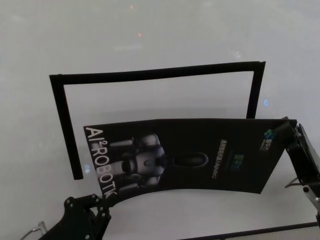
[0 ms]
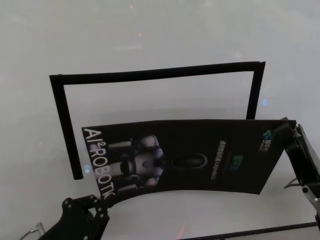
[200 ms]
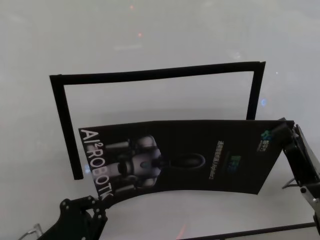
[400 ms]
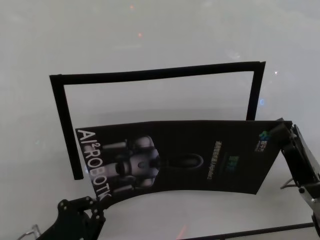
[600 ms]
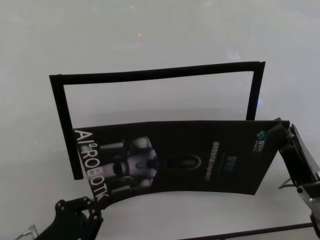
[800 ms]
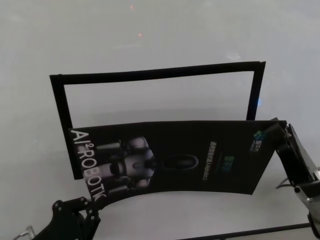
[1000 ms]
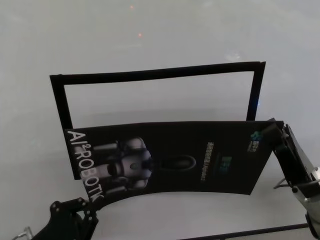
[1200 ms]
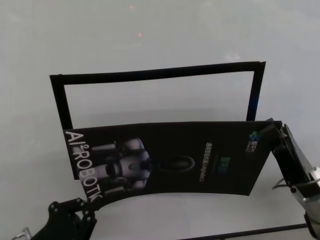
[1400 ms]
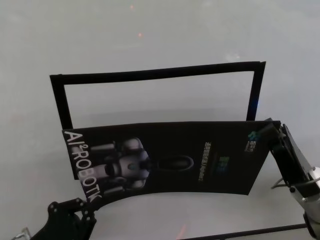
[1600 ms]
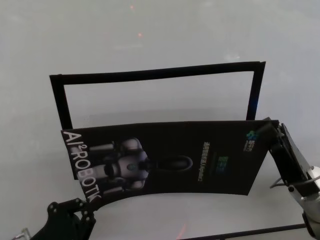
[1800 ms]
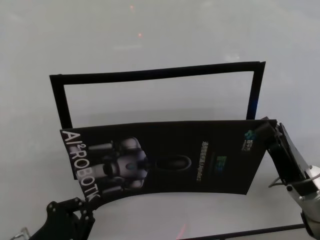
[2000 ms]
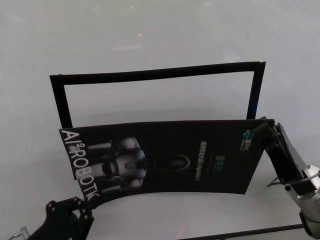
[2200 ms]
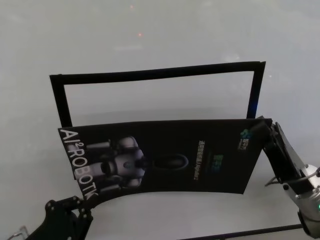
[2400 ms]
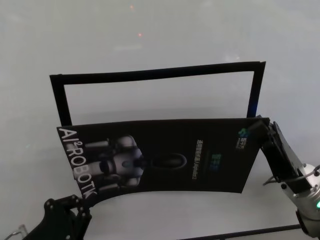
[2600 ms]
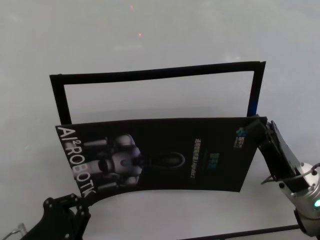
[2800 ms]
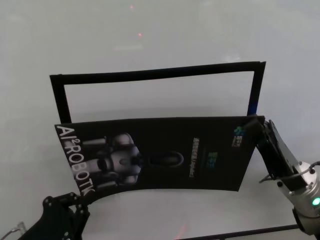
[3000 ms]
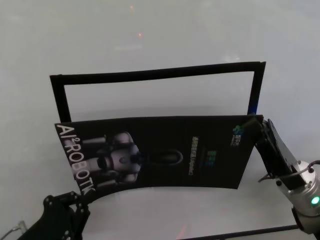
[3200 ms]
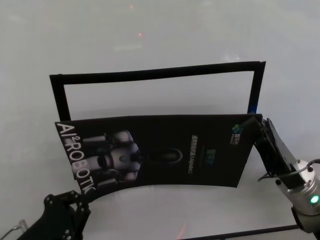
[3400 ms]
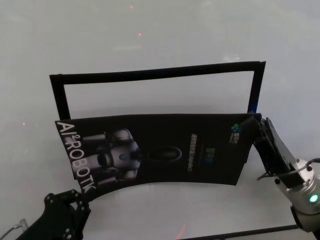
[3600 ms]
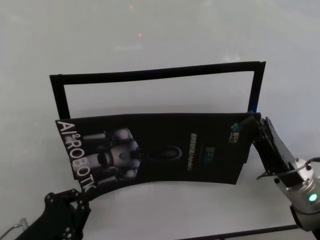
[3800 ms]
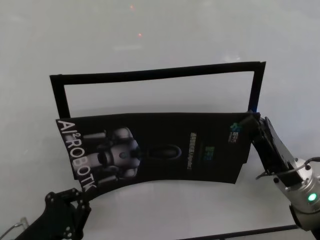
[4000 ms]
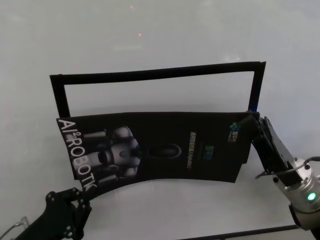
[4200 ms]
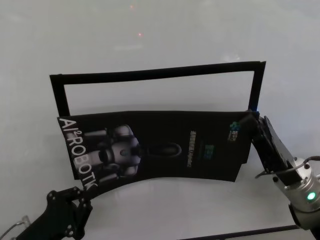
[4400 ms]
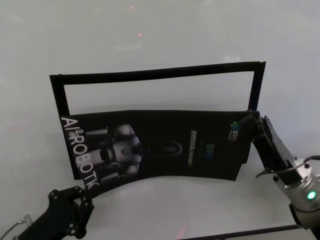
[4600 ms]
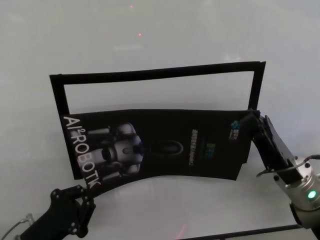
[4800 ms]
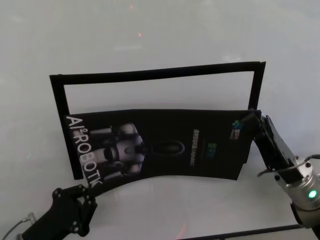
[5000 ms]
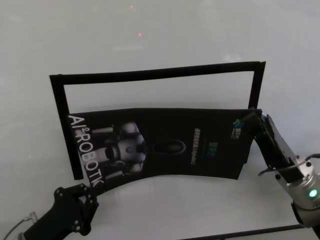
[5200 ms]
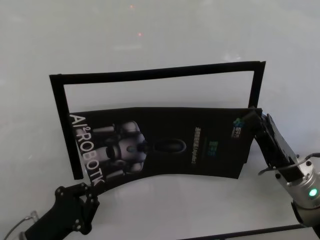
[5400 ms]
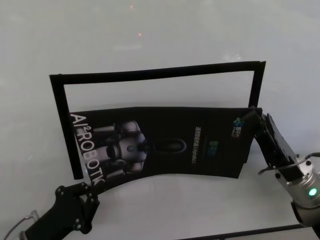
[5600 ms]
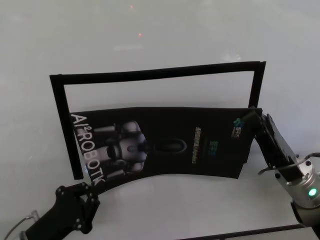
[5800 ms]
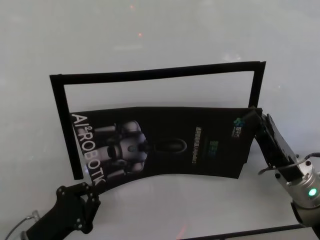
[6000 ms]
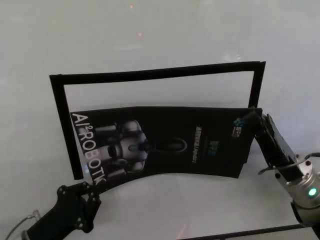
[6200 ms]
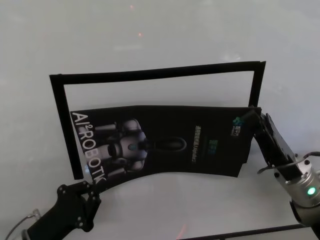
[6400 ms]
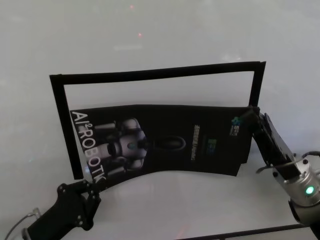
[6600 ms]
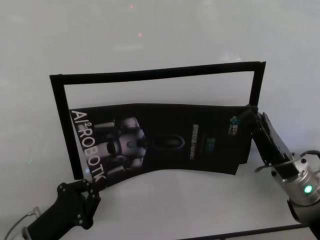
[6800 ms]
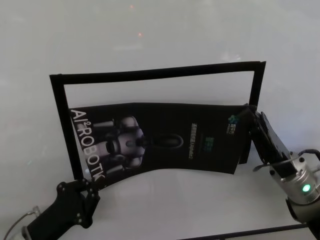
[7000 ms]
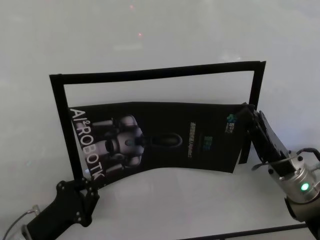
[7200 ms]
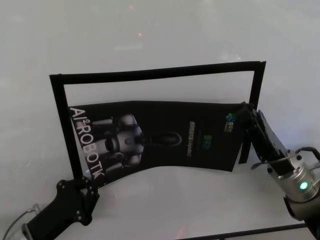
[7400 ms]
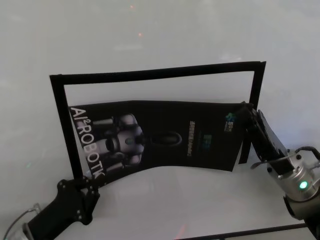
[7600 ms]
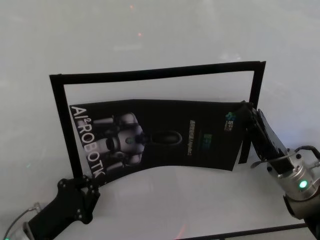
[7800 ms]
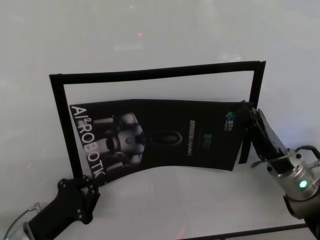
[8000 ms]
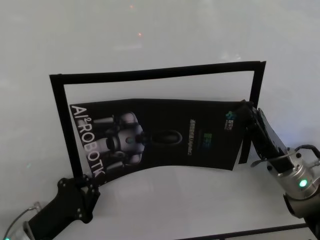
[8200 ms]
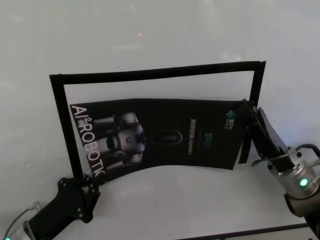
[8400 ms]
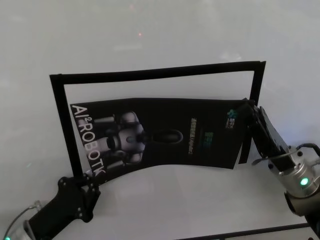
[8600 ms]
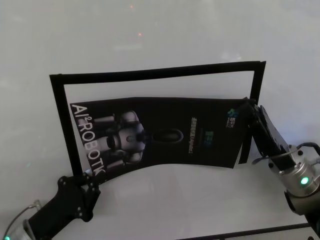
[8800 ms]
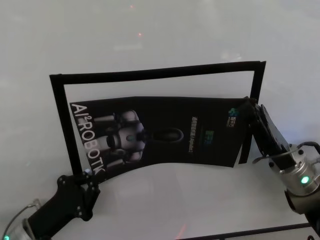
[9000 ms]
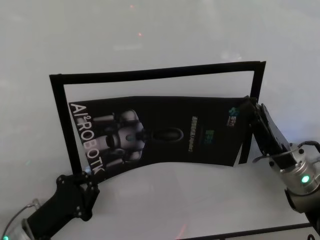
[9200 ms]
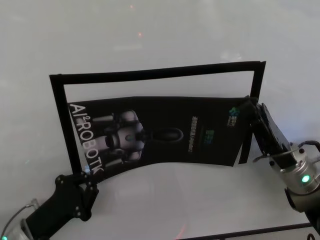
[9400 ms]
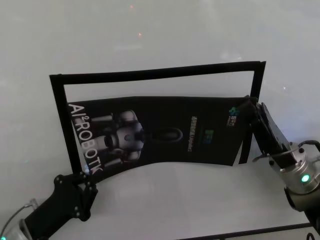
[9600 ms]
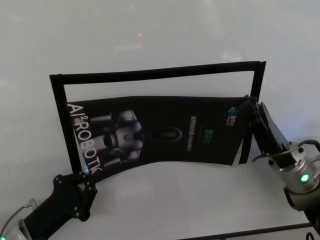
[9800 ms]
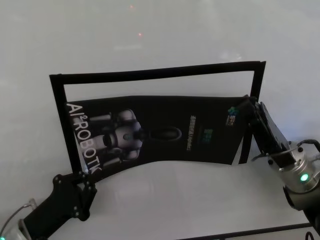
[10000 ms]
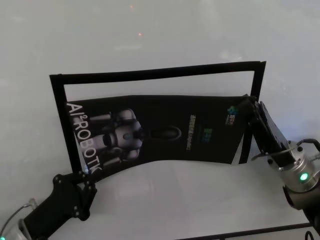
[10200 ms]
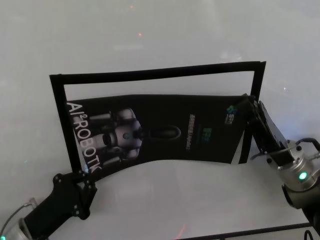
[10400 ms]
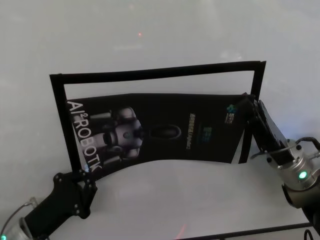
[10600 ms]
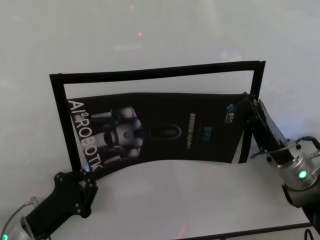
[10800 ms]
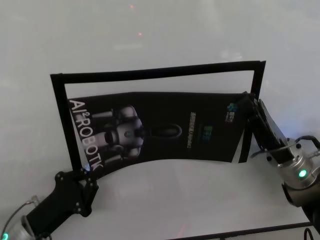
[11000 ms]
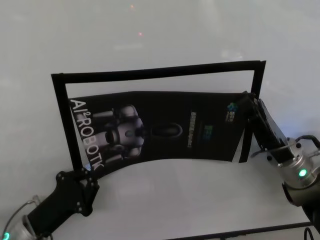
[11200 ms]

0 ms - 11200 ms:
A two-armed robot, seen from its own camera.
Task of the whole recording: stick the poster on the table by hand.
Step, 0 ms - 10400 ms: Stick the advertisement in the top-right corner area with both grippers.

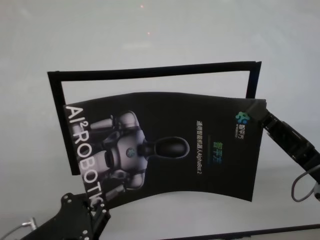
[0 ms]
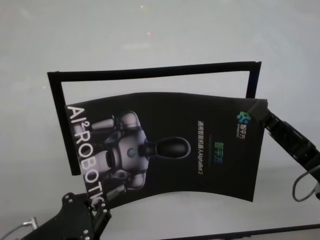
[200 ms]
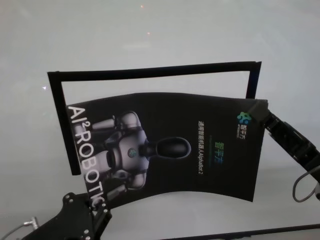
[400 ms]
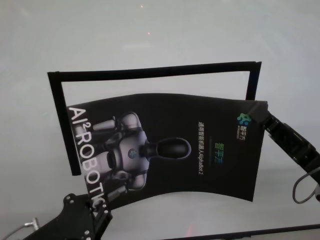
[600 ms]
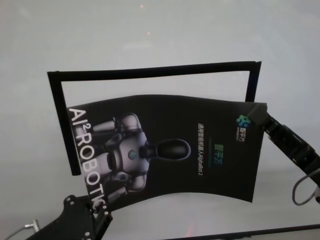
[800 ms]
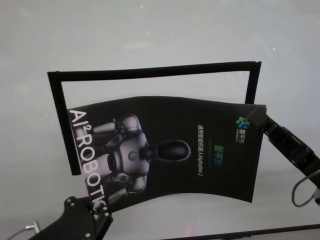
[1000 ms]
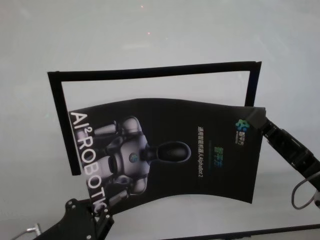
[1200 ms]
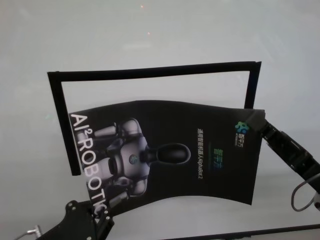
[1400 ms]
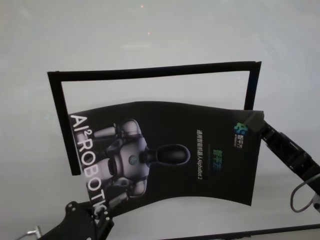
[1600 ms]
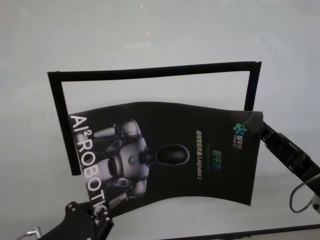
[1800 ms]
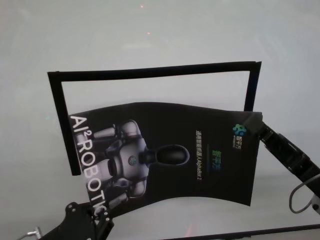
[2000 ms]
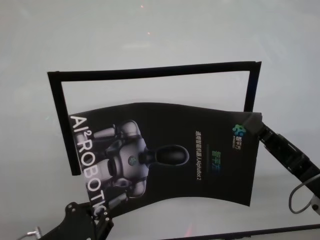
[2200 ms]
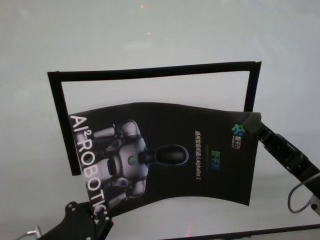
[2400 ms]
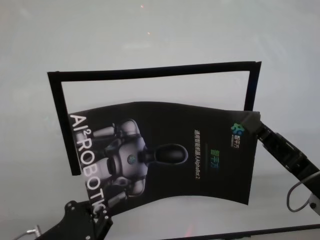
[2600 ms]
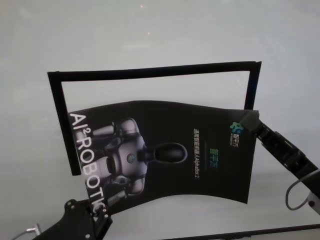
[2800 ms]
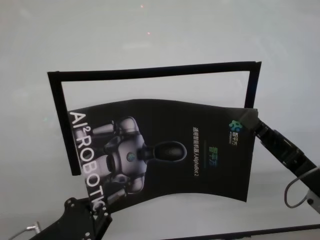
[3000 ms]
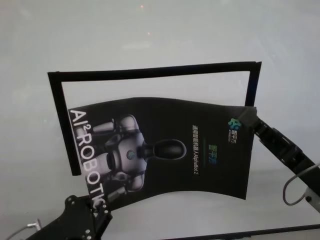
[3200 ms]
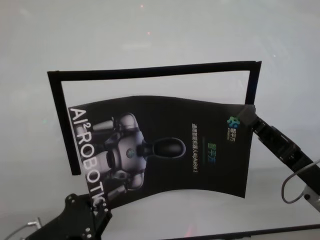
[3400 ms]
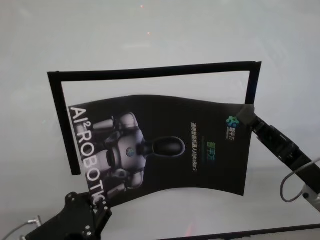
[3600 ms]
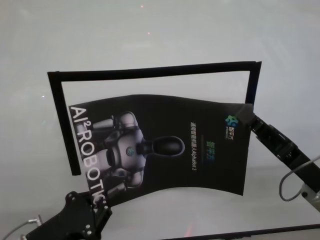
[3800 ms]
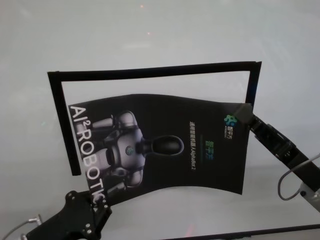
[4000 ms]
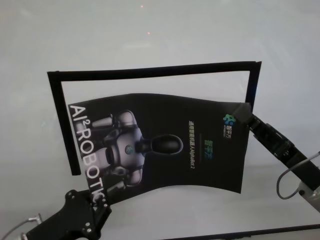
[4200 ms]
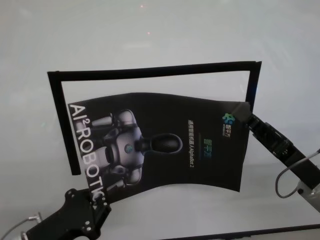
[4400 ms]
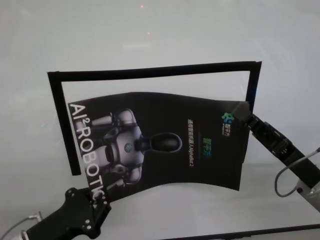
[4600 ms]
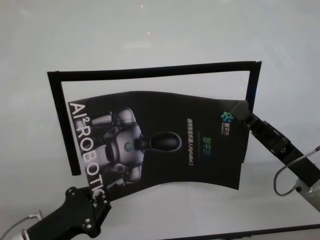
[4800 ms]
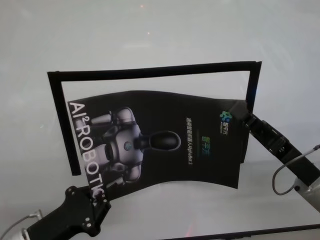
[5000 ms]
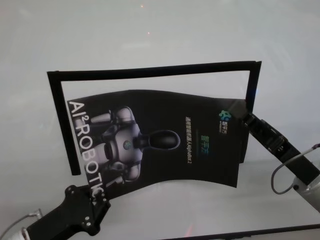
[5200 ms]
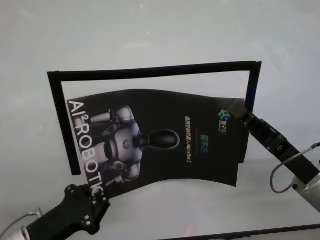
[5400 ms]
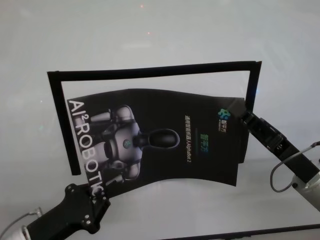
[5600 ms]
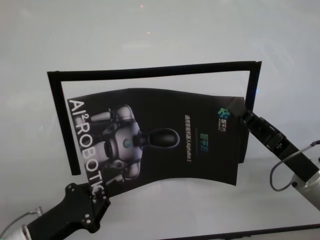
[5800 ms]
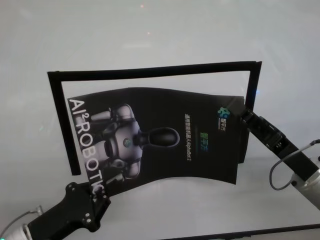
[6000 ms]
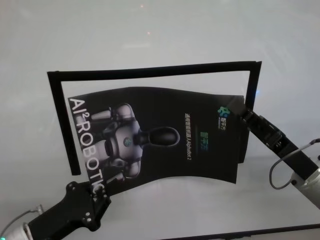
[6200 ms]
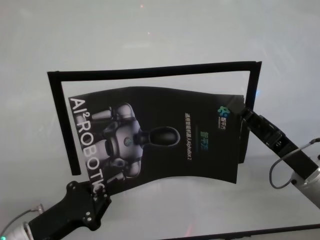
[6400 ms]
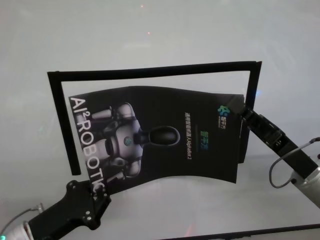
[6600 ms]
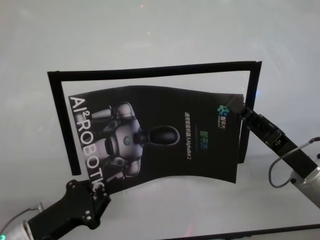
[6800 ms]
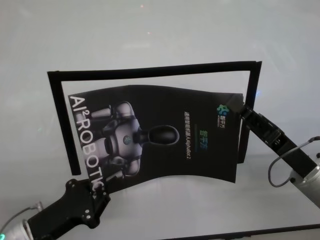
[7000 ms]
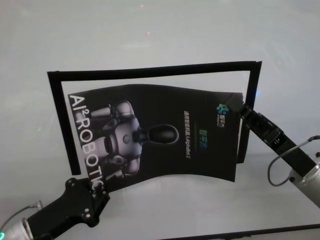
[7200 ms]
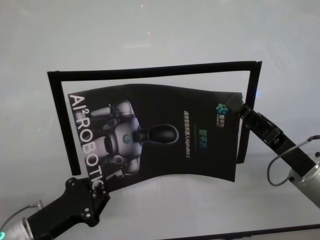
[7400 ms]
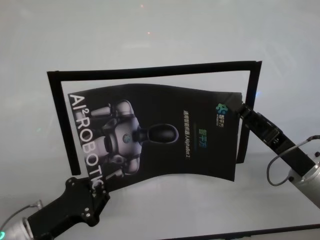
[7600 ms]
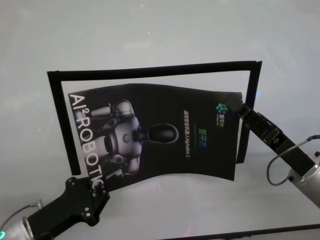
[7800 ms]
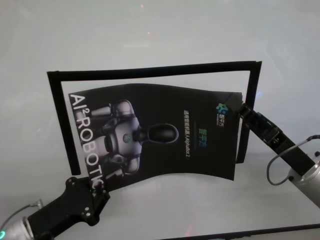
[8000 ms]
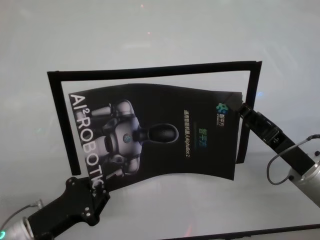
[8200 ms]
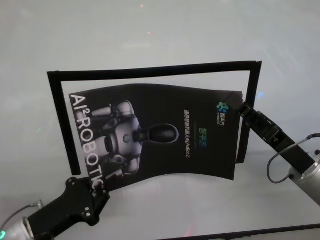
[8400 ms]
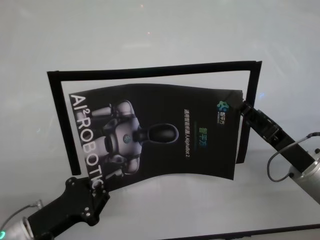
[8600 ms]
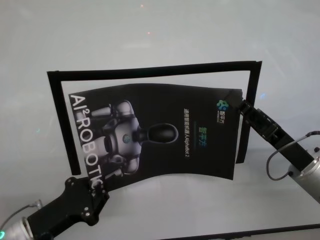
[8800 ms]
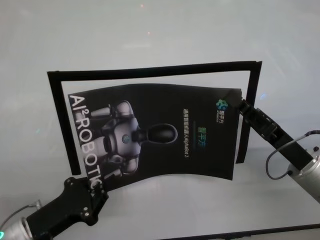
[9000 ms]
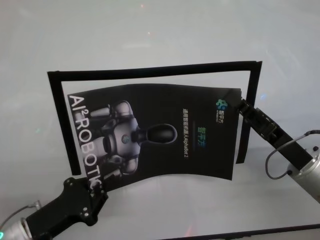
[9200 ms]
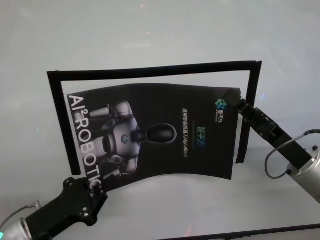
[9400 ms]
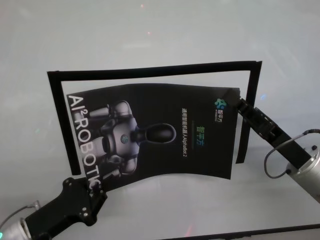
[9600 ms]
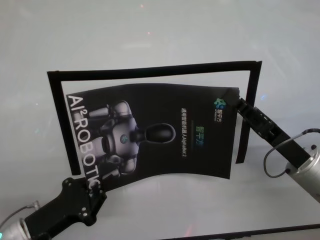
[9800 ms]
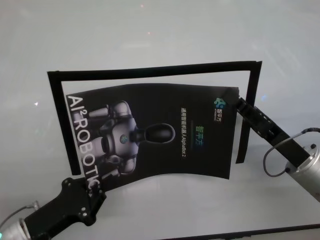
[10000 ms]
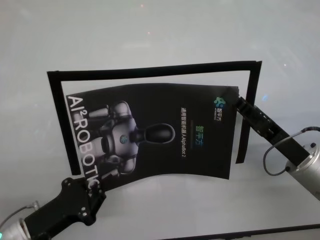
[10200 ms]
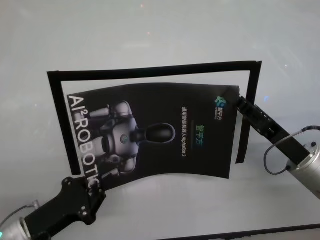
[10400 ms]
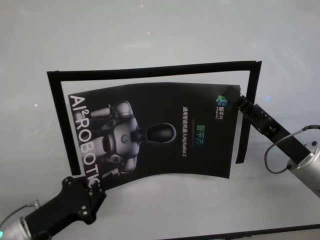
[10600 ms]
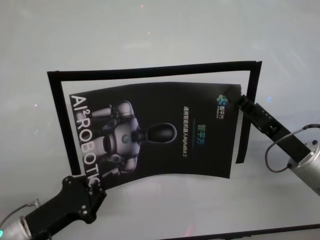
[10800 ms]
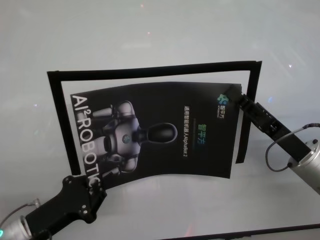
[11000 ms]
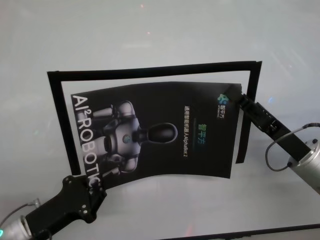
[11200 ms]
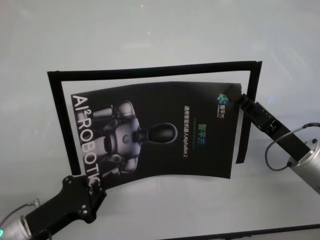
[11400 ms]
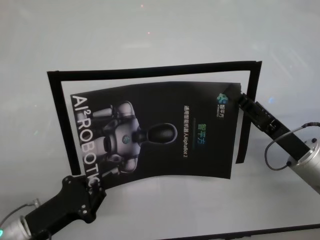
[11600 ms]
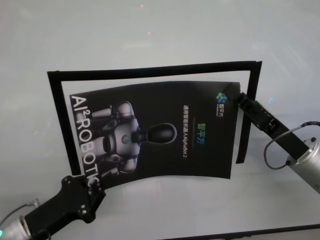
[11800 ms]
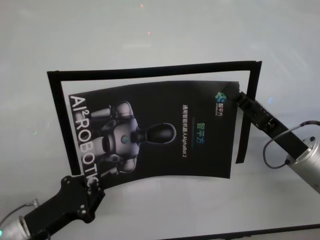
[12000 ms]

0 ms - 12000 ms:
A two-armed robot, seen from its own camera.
Task of the whole recording: stick the poster on the table by hand.
Step, 0 ms - 11000 ms: Stick the advertisement in the top-right corner area with both grippers.
